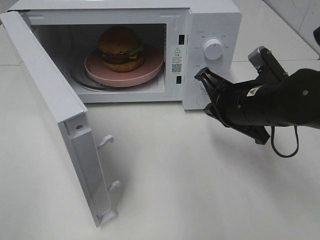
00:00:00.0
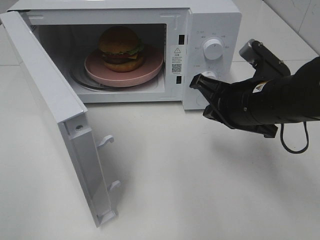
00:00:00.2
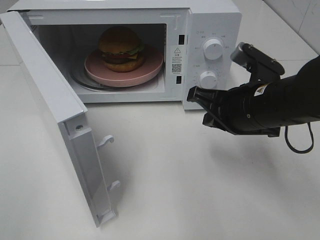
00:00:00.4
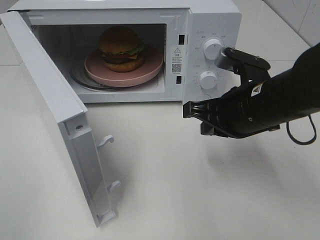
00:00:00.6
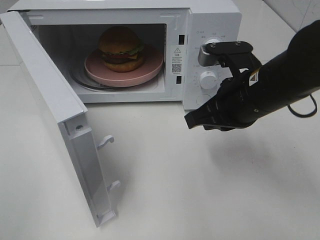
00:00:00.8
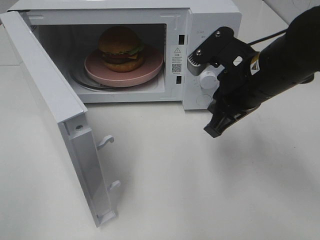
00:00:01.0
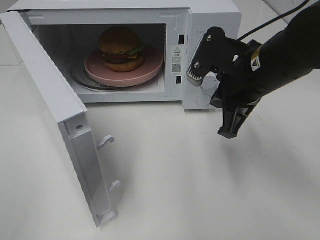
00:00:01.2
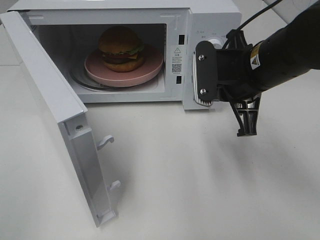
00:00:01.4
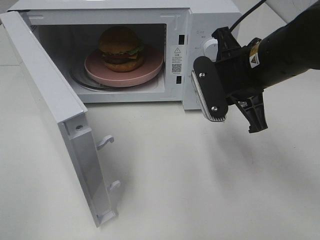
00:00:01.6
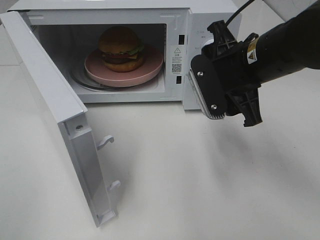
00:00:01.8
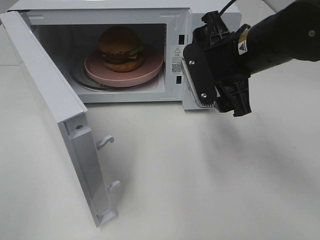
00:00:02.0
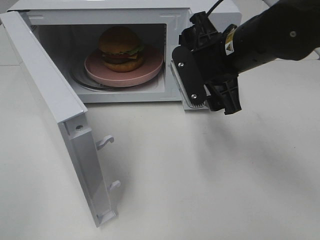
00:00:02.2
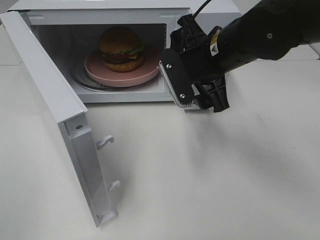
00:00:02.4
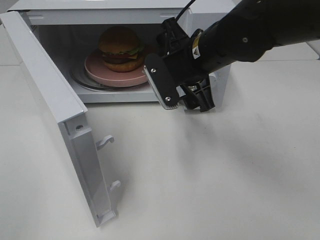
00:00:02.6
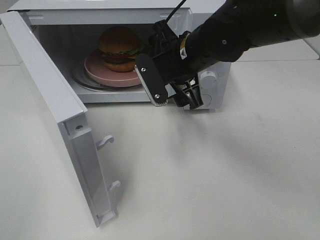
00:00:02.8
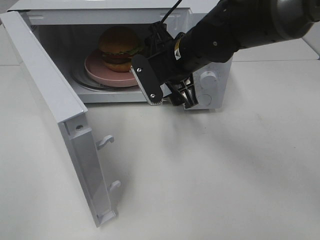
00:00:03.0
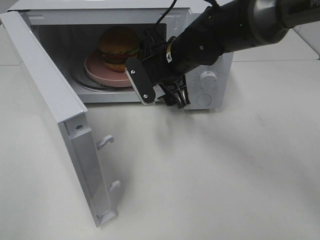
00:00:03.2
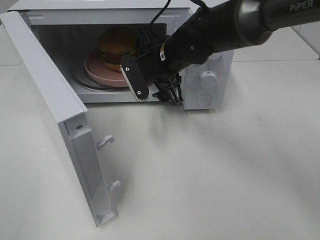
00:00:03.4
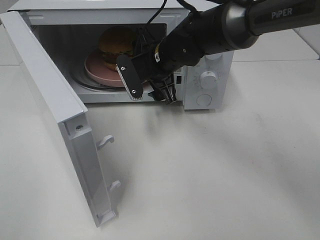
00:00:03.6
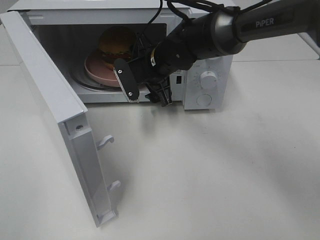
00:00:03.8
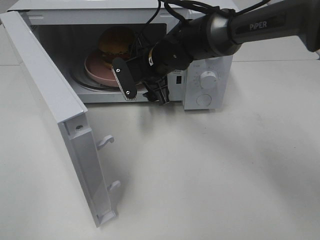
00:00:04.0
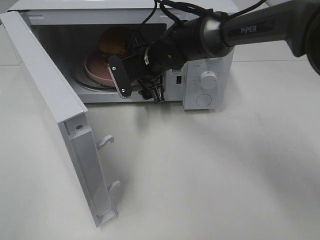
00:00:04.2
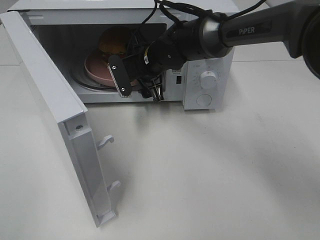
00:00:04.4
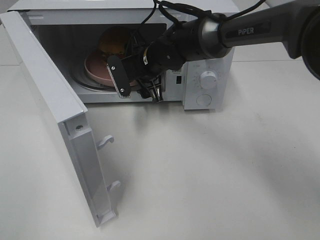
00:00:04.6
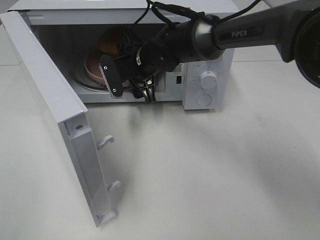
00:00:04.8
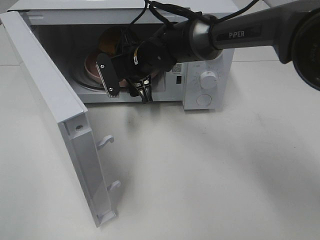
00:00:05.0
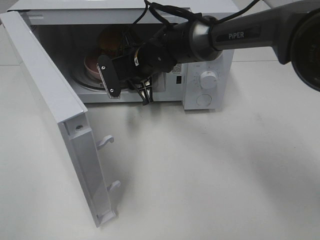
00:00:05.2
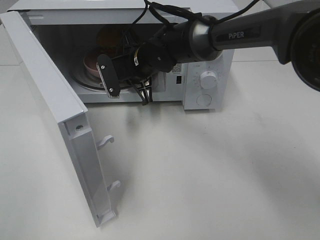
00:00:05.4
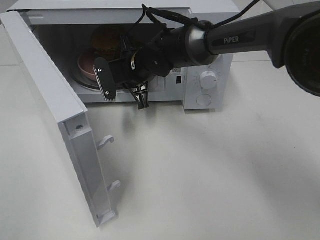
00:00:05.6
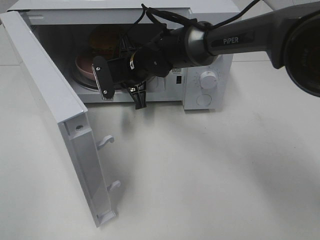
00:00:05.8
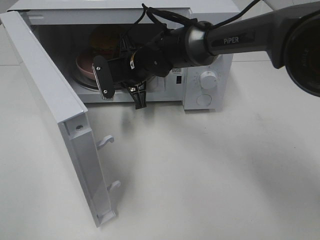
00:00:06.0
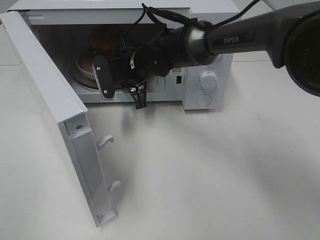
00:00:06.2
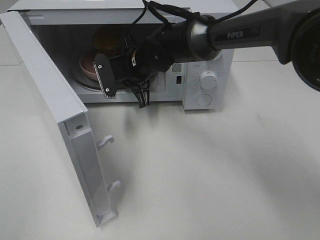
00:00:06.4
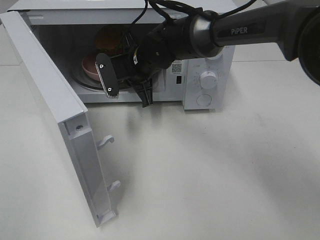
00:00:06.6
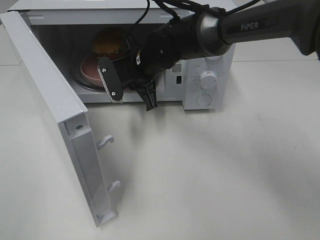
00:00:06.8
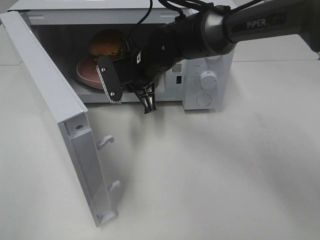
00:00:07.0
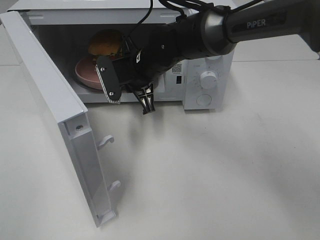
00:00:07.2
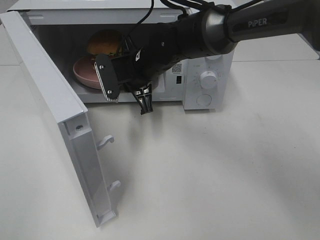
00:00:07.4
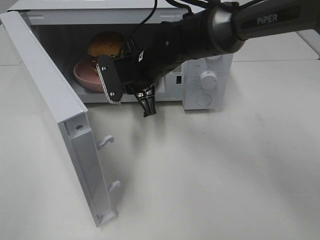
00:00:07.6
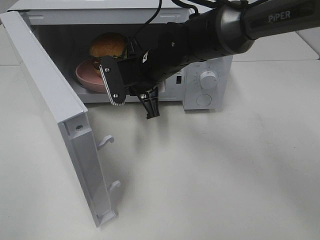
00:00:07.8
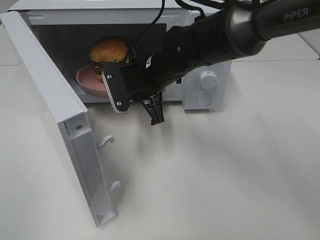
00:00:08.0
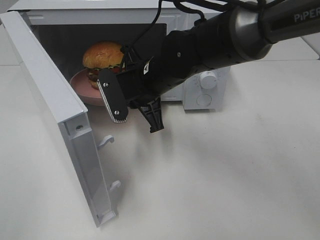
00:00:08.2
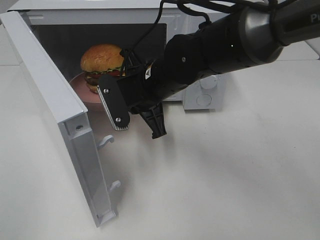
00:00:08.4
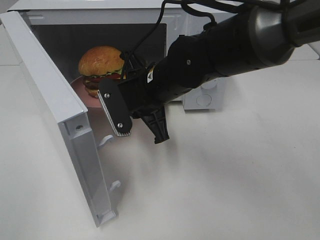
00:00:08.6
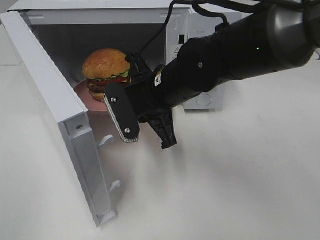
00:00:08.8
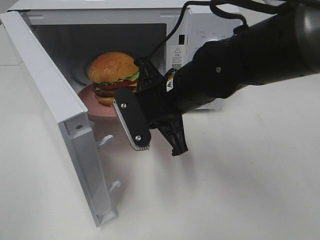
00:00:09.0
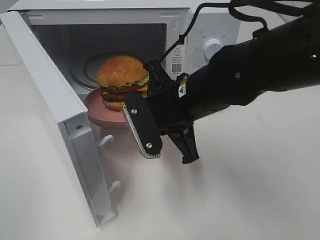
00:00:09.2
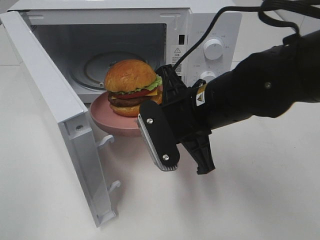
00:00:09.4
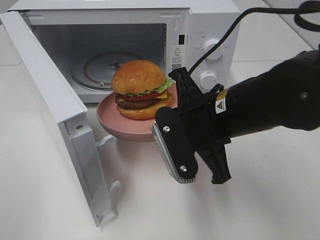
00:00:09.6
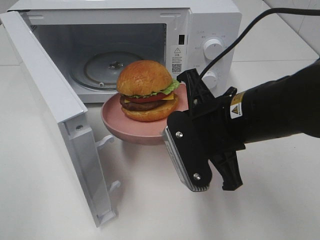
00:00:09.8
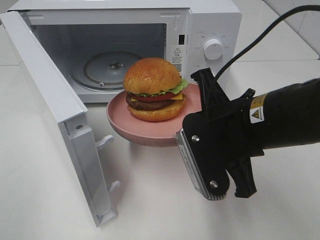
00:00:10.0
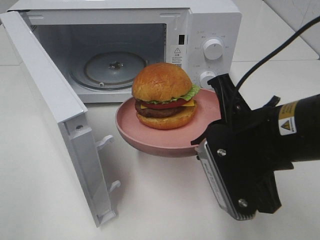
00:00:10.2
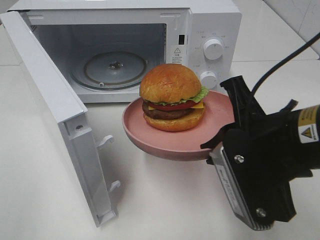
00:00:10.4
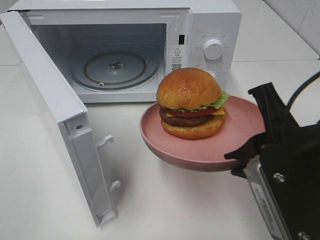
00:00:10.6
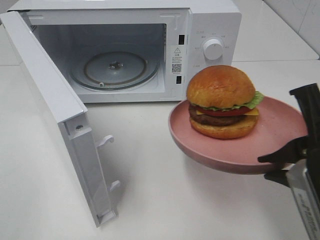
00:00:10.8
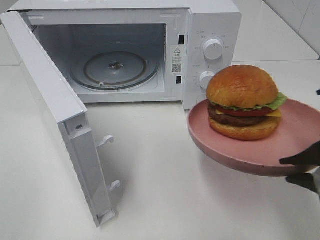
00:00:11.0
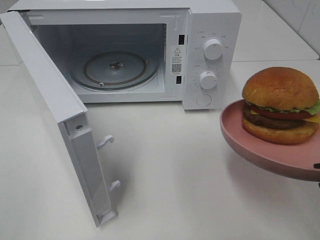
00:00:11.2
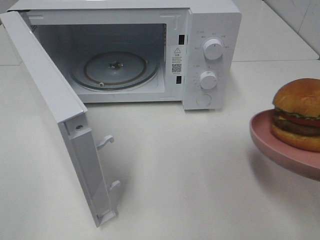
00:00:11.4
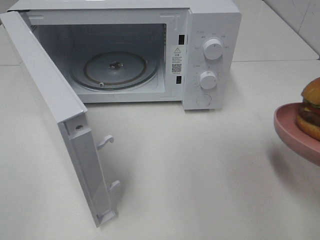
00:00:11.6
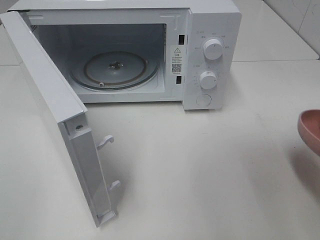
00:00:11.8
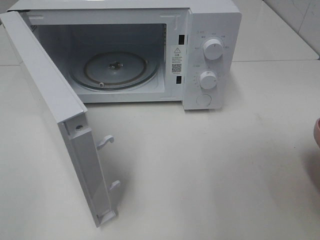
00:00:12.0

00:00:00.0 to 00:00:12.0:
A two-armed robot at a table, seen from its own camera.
Task of the whole recording: Heat the burger.
Step, 00:00:00.0 to 00:00:05.2: Right hand: grab the plate with the hamburger.
00:00:00.0 to 00:00:01.6: The right gripper goes roughly 5 cm upward.
00:00:01.6 to 00:00:03.0: The right gripper goes approximately 10 cm to the left and forward, and opens its fingers.
00:00:03.0 to 00:00:04.4: The right gripper shifts some 5 cm forward.
00:00:04.4 to 00:00:06.0: The right gripper closes.
00:00:06.0 to 00:00:07.6: The grippers stay close to where they were, moving slightly.
00:00:07.6 to 00:00:09.0: The right gripper goes roughly 10 cm backward.
00:00:09.0 to 00:00:10.4: The right gripper is displaced backward and to the right by approximately 15 cm.
00:00:10.4 to 00:00:12.0: The right gripper travels to the right by some 10 cm.

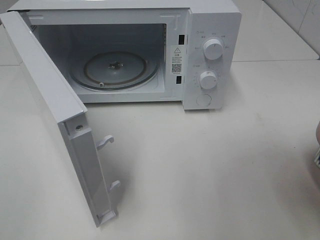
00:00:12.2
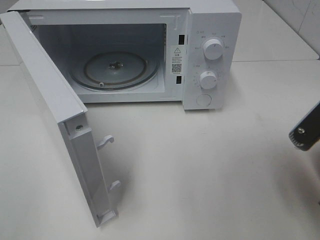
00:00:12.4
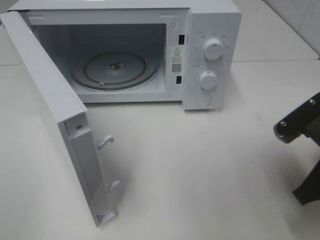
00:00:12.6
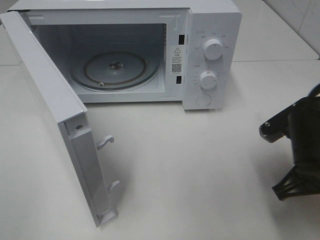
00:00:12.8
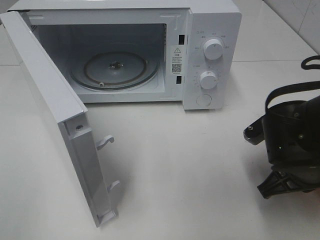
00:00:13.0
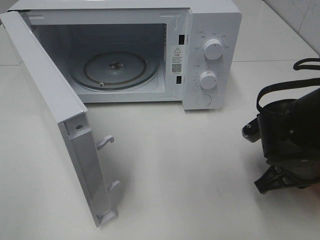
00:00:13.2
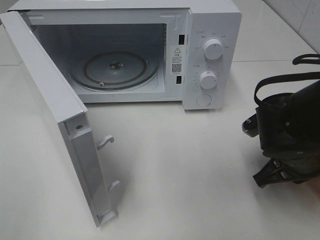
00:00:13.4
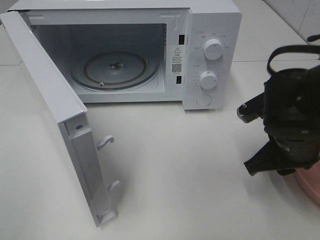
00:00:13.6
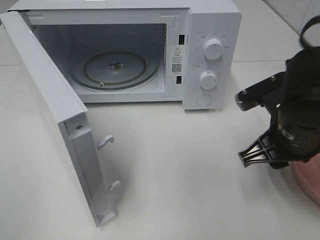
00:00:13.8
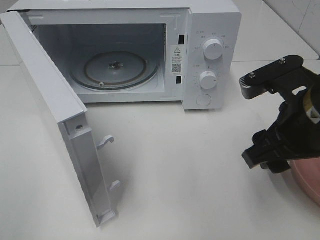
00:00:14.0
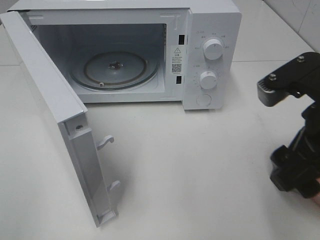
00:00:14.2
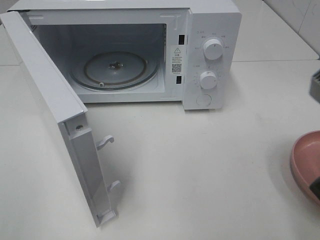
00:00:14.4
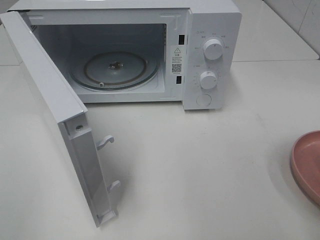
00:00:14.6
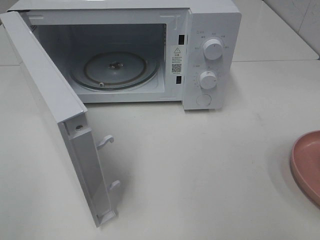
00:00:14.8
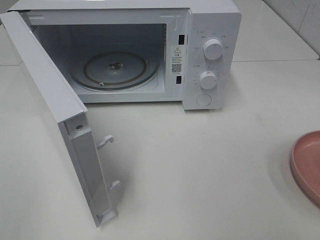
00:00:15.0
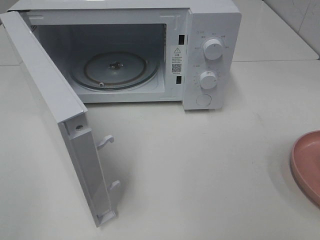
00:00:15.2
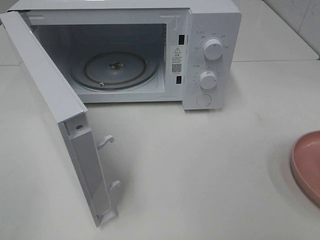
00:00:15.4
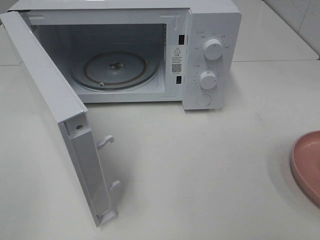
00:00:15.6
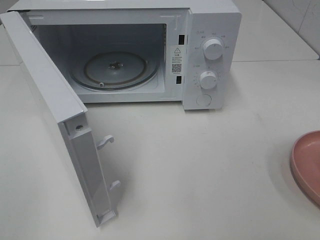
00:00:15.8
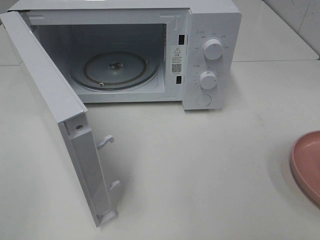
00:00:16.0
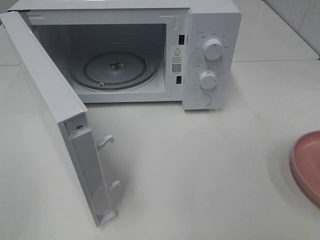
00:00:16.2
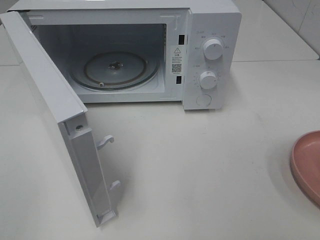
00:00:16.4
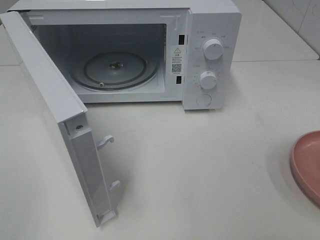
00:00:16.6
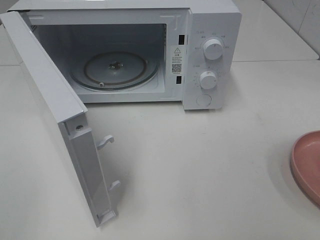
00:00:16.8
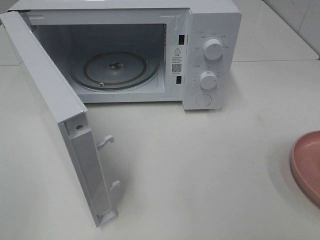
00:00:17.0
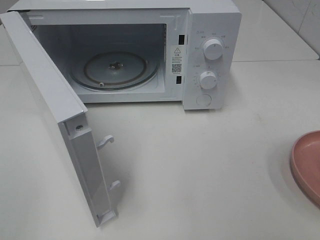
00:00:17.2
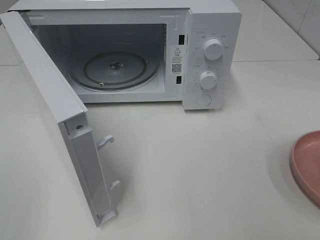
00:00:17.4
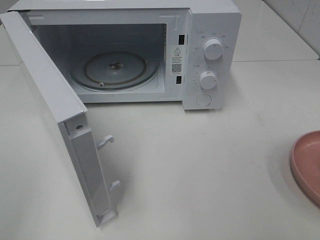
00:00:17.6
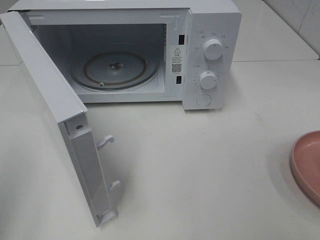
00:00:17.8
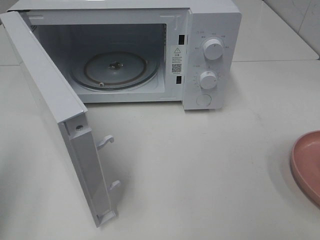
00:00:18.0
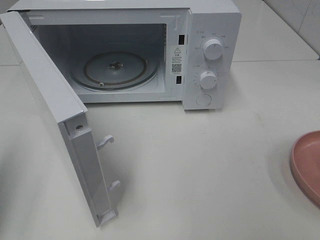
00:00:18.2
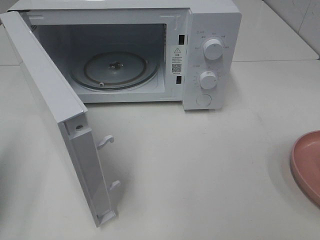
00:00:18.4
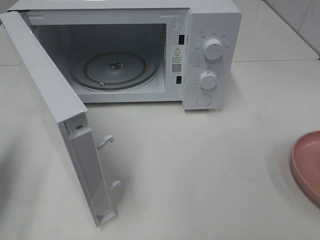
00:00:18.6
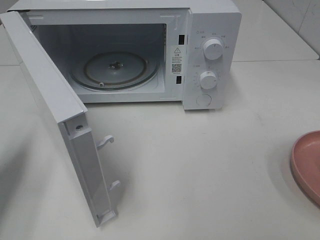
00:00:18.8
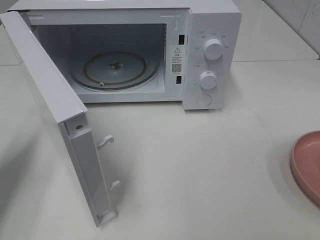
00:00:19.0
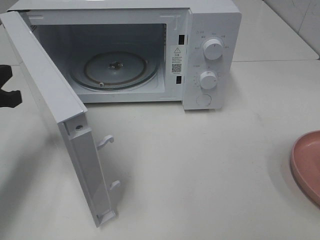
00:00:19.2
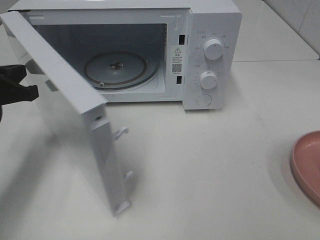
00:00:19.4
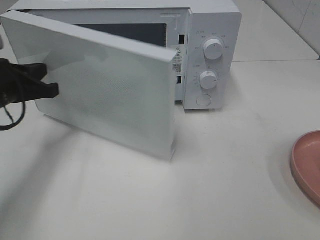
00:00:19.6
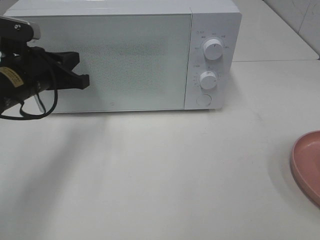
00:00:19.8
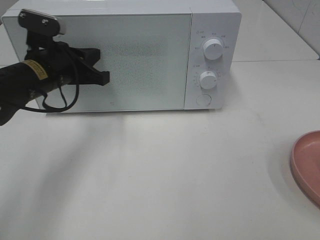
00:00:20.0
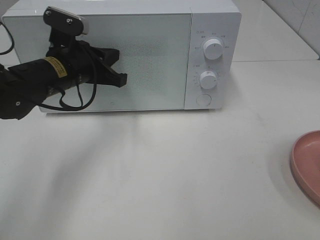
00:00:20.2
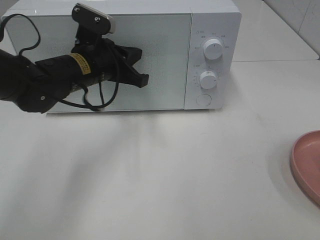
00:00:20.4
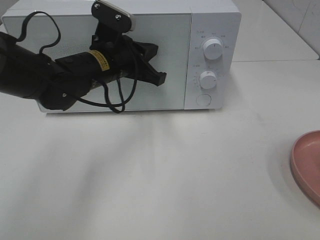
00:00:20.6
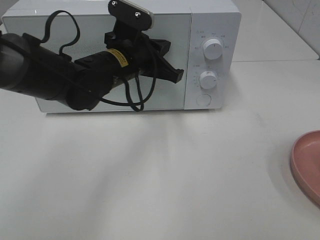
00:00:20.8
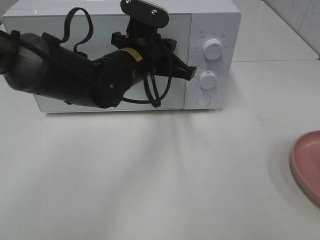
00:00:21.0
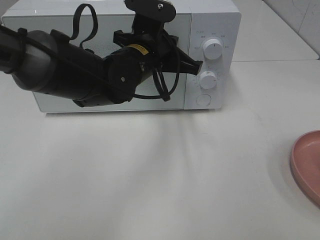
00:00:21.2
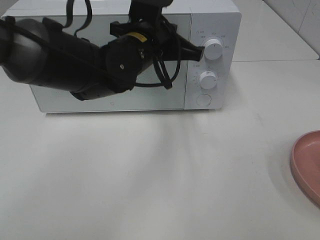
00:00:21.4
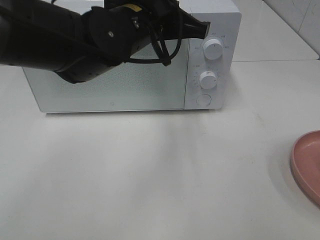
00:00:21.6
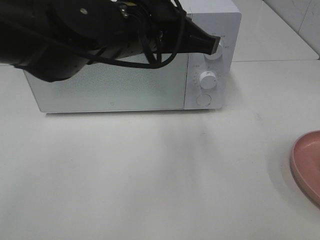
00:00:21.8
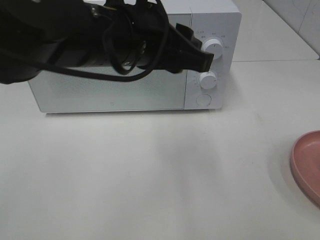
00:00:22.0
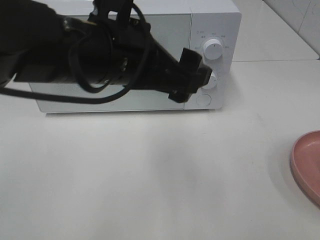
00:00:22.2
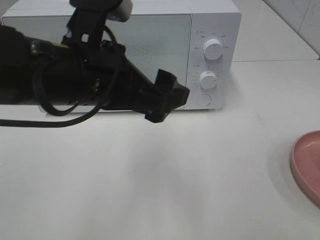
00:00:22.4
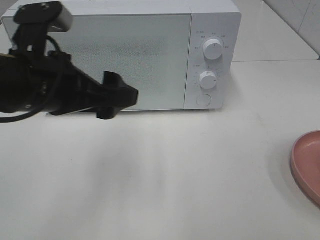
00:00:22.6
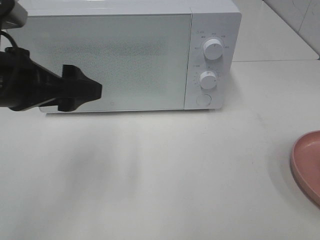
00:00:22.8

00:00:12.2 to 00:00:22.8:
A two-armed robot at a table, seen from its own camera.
Task of the whole recording: Heat the burger.
Step, 00:00:13.6 to 00:00:21.4: Left hand: close the microwave door.
00:00:12.2 to 00:00:13.8: The right gripper heads forward and to the left, covering approximately 10 cm, and opens its fingers.
00:00:13.8 to 00:00:15.2: The right gripper travels backward, upward and to the right by roughly 30 cm, and opens up.
00:00:16.8 to 00:00:18.2: The left gripper travels forward by some 15 cm, and closes.
00:00:18.2 to 00:00:19.8: The left gripper heads forward, to the right and downward, covering some 25 cm.
00:00:19.8 to 00:00:21.2: The left gripper goes approximately 20 cm to the right.
00:00:21.2 to 00:00:22.8: The left gripper shifts about 20 cm to the left and backward, and opens up.
